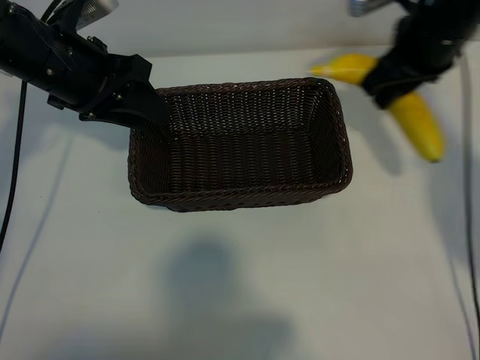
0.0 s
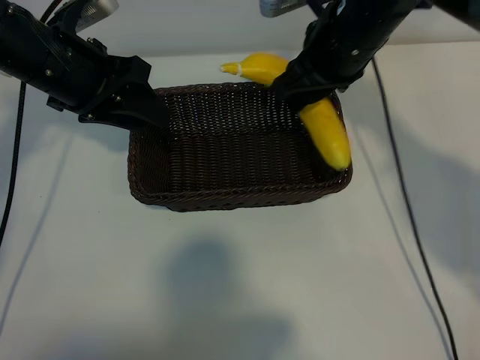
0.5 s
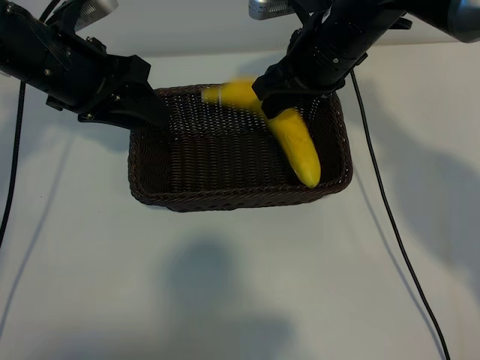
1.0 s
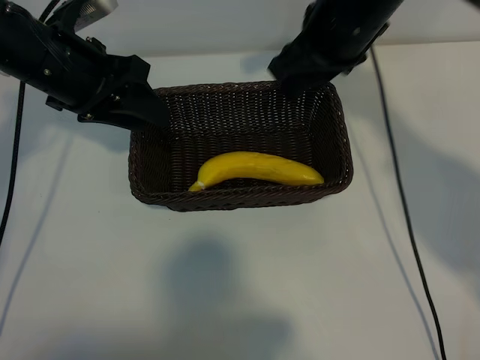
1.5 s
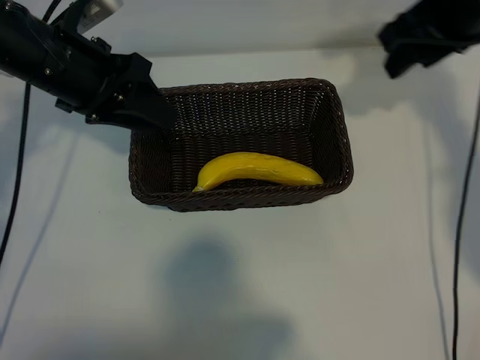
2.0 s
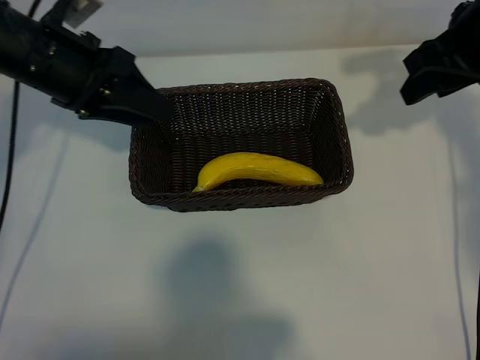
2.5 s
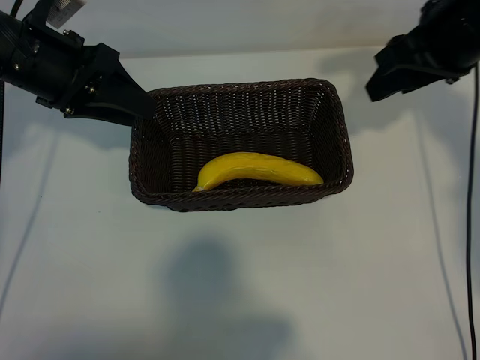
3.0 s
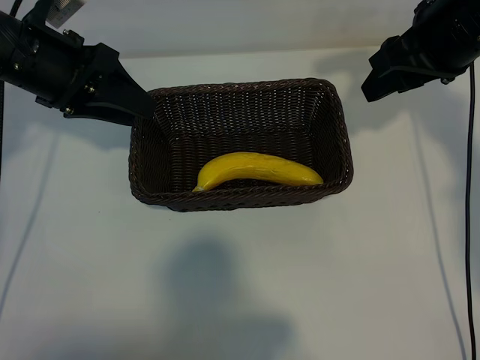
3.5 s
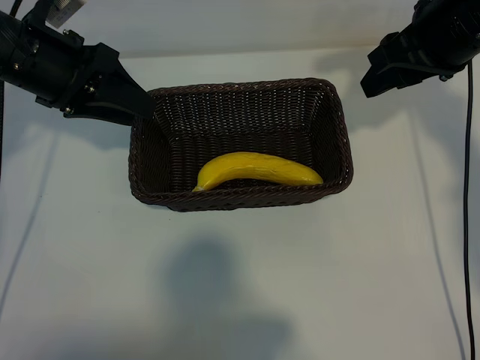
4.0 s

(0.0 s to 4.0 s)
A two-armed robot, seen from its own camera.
Task of the whole recording: pick up the banana and put it into the basket.
Step, 0.0 s - 1.5 s: Place the banana in the basket with right gripper.

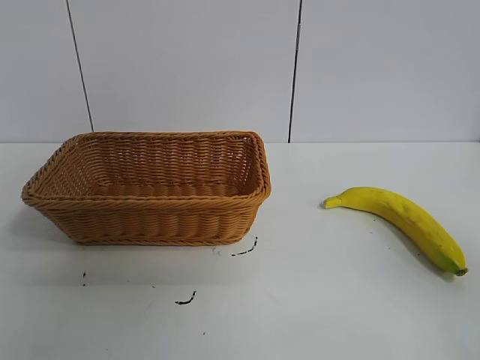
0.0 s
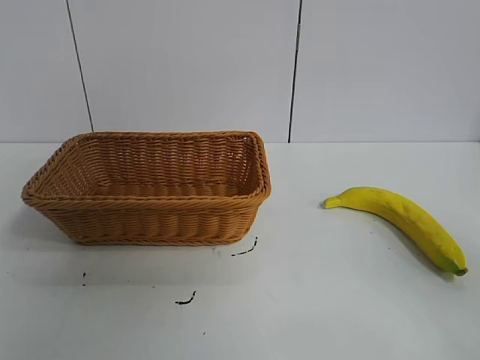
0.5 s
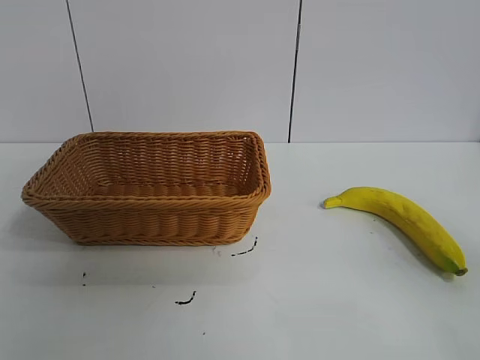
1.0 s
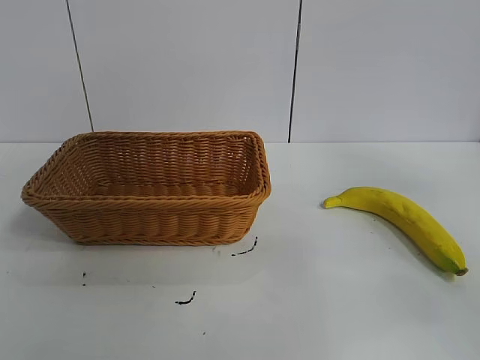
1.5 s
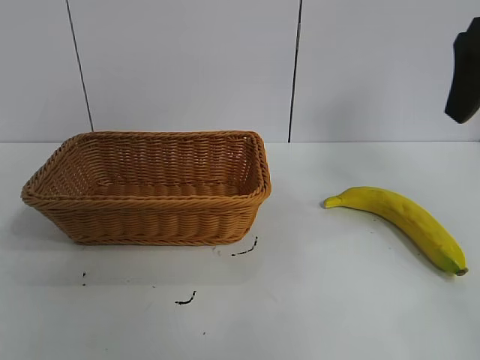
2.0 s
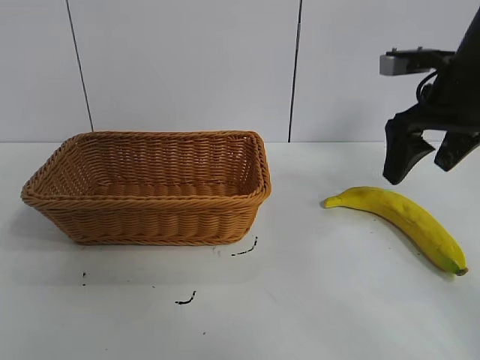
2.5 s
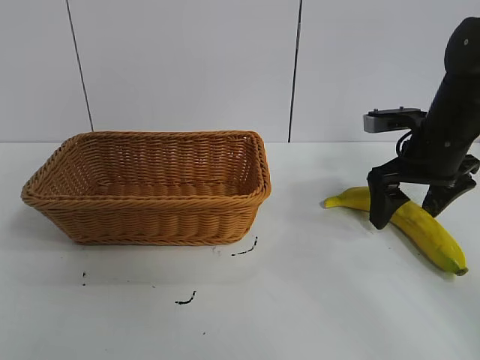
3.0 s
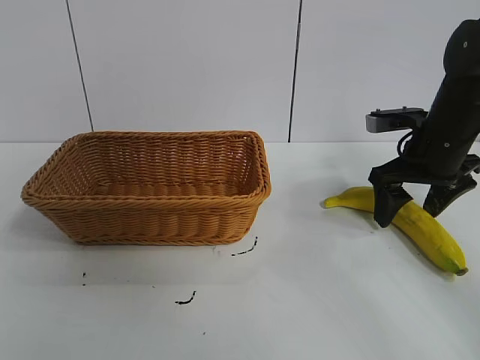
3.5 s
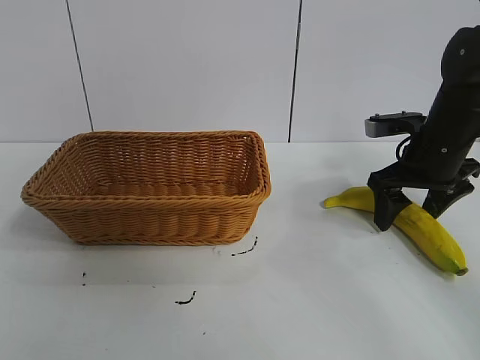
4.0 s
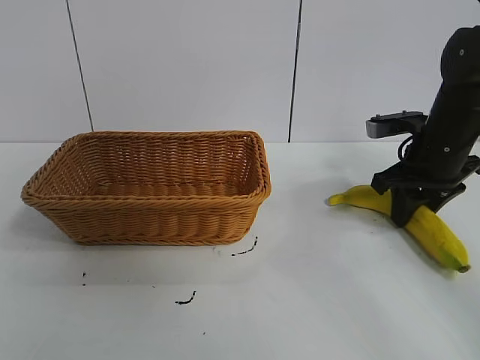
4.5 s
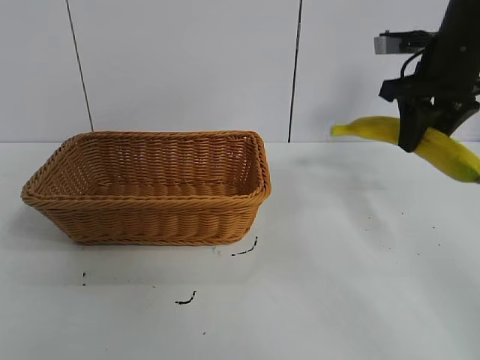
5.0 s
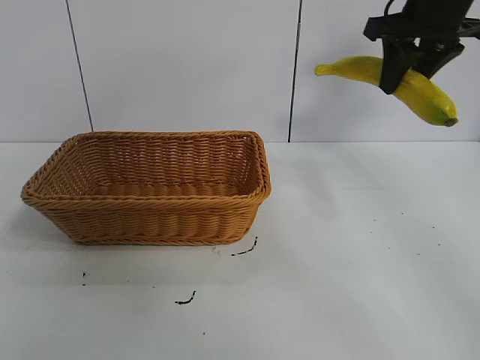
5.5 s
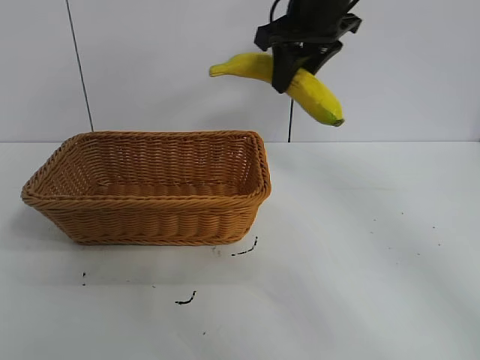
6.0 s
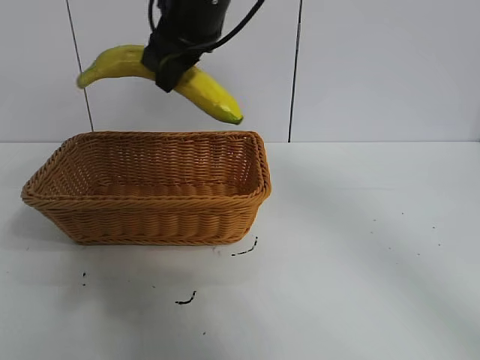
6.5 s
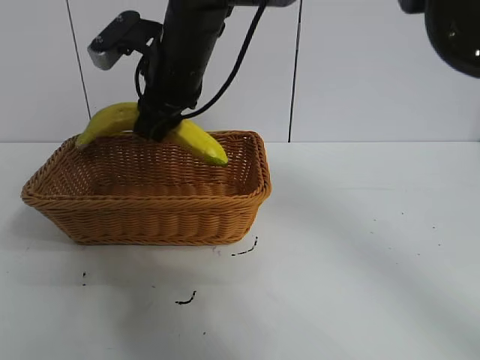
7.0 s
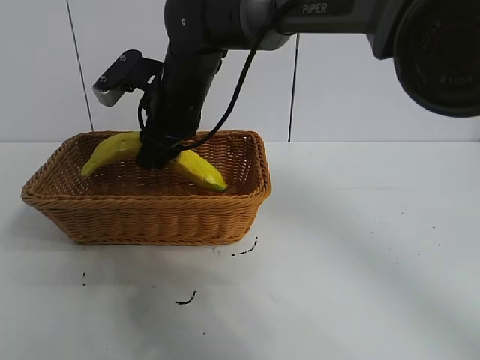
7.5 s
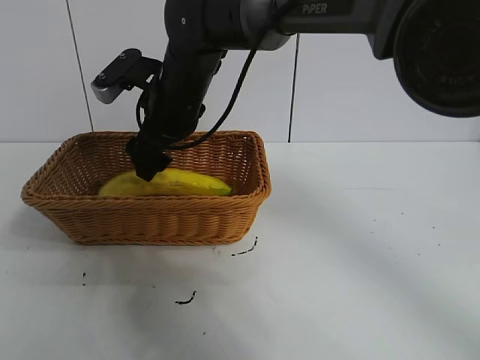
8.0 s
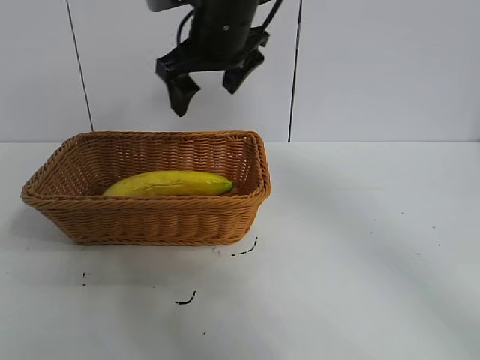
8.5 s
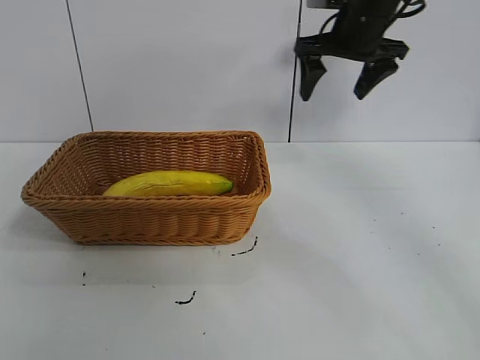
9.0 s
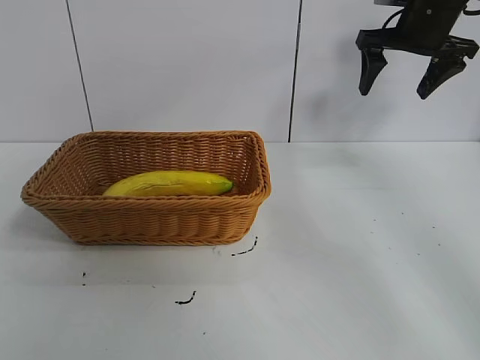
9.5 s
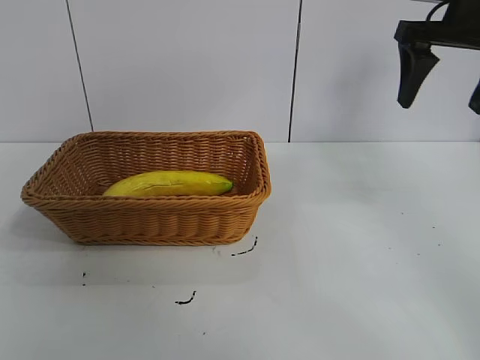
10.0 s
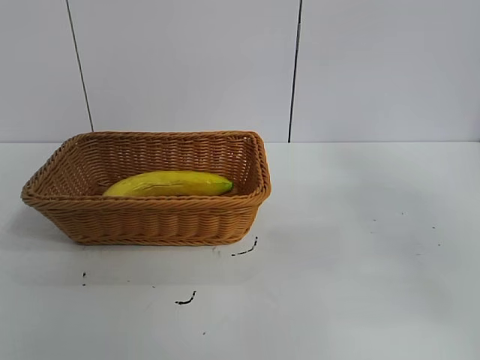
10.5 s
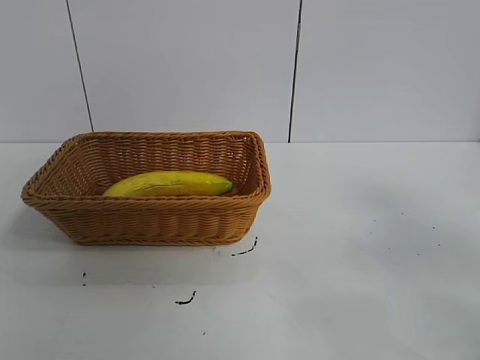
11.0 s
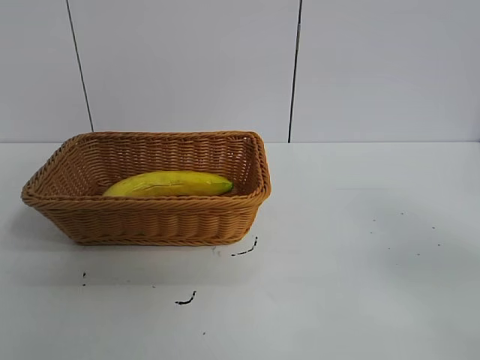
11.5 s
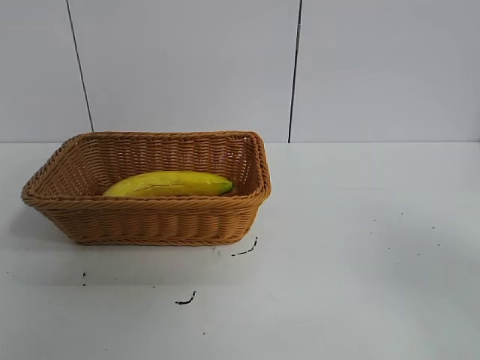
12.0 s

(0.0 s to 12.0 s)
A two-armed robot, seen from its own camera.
Task of the whole recording: pick up the banana and put it into the basket.
Step, 1.0 s - 4.0 s: Grasp the banana with right gripper.
Step, 5.0 s - 8.0 s: Place the banana in the basket with right gripper.
